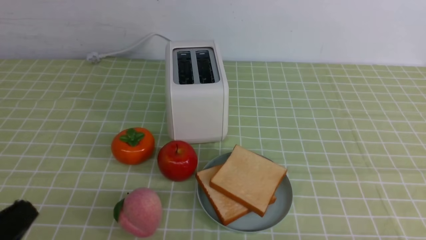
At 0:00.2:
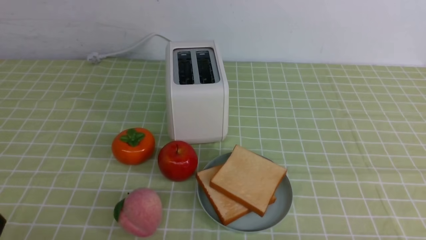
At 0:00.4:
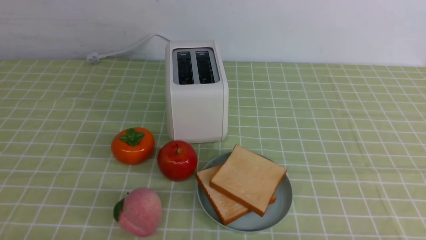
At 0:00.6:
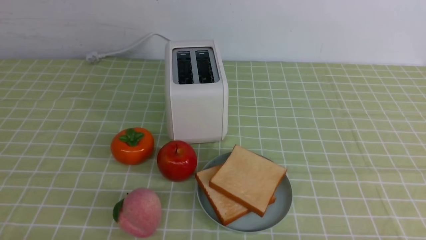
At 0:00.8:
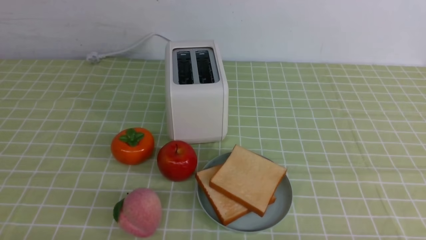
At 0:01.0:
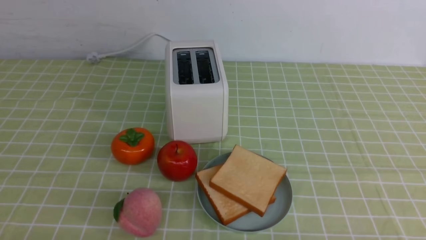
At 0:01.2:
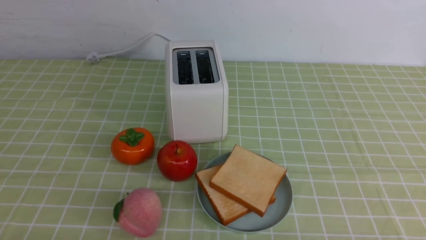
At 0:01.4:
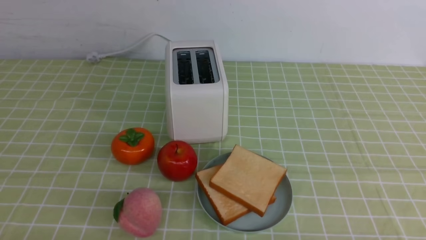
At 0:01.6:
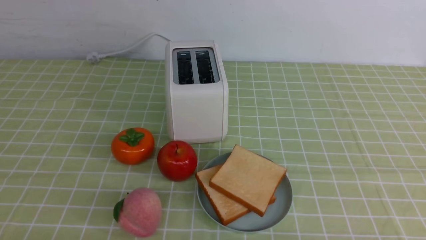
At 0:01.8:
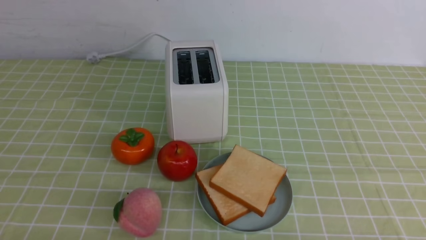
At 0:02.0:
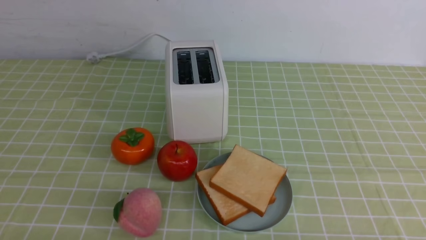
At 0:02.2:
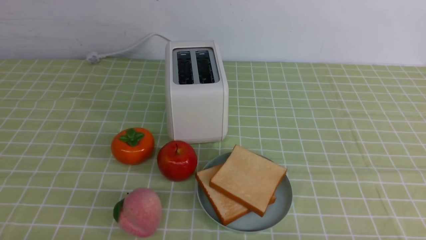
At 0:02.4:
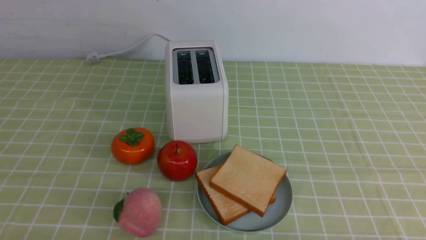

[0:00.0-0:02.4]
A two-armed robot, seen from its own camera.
Task of the whole recording: take toasted bread from bread machine on green coffee tablecloth place on plate.
0:00.0 to 0:01.2: The left gripper shifts about 5 cm downward.
0:01.2 to 0:02.4: Both grippers stay about where they are.
